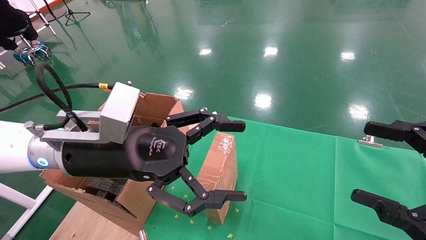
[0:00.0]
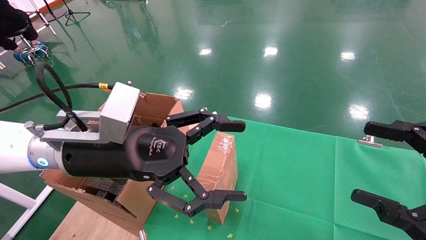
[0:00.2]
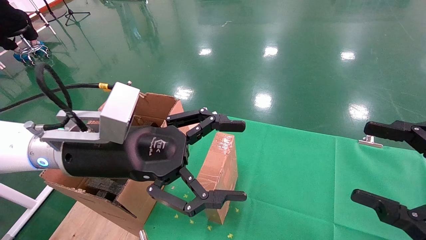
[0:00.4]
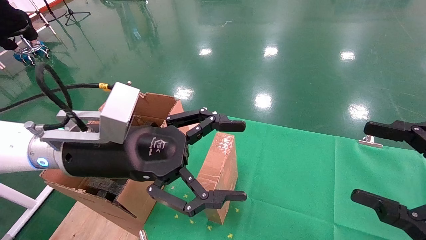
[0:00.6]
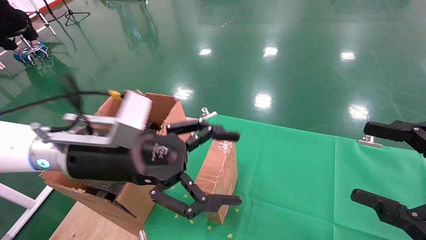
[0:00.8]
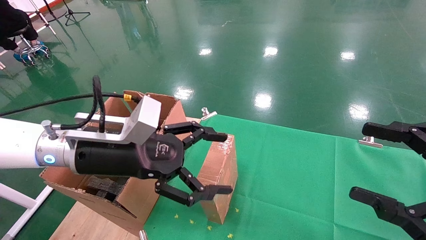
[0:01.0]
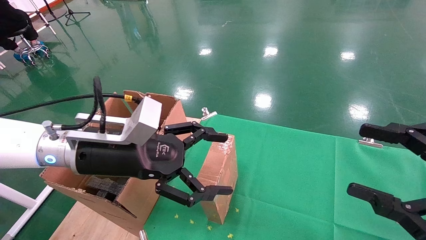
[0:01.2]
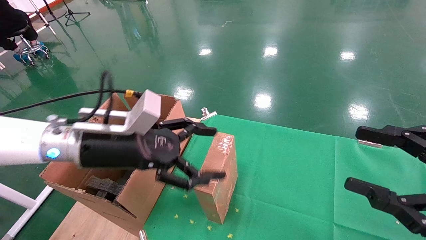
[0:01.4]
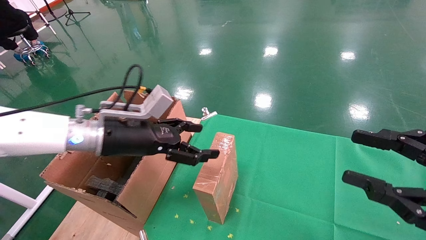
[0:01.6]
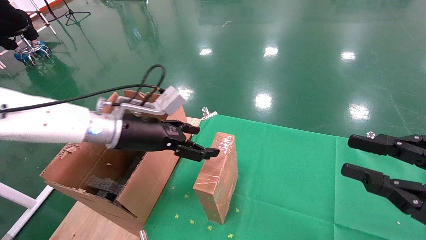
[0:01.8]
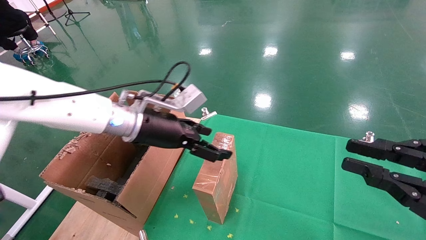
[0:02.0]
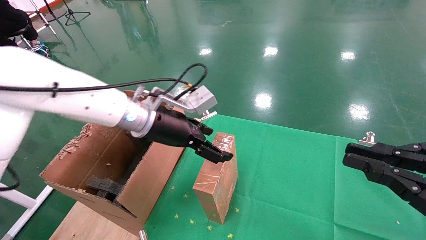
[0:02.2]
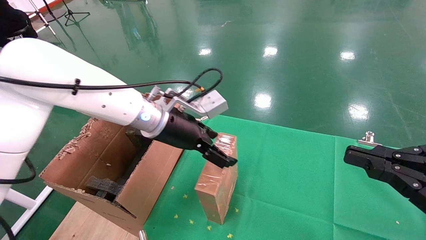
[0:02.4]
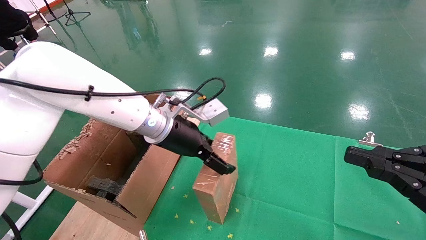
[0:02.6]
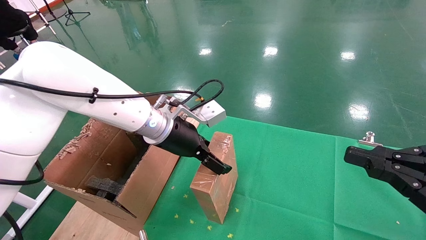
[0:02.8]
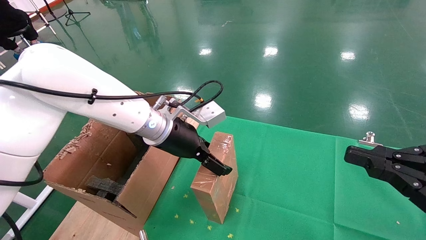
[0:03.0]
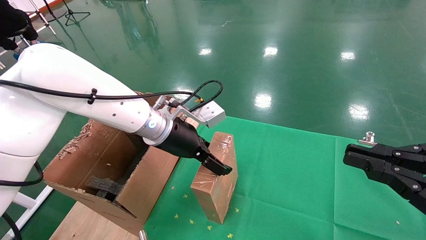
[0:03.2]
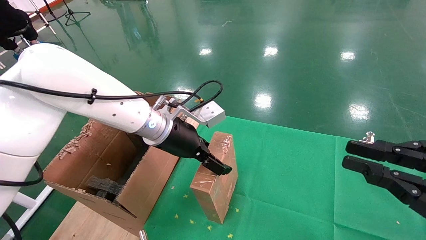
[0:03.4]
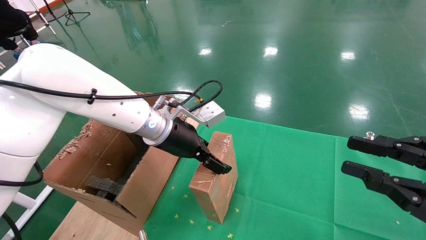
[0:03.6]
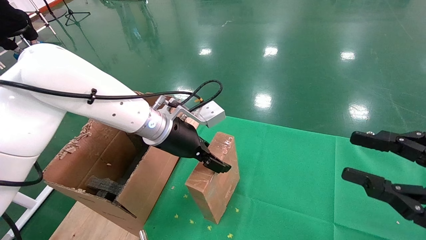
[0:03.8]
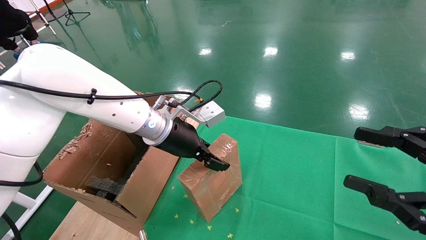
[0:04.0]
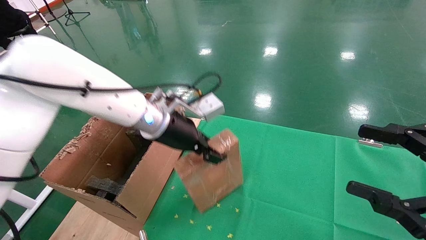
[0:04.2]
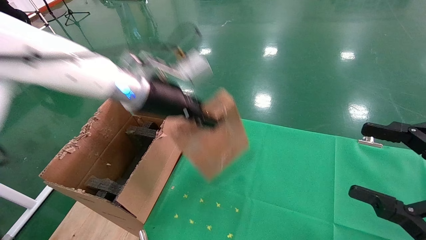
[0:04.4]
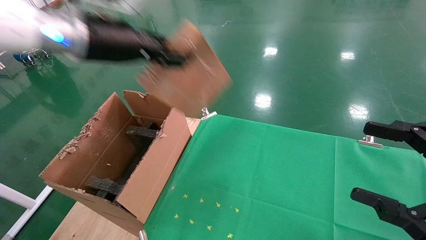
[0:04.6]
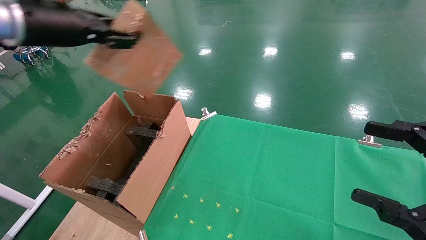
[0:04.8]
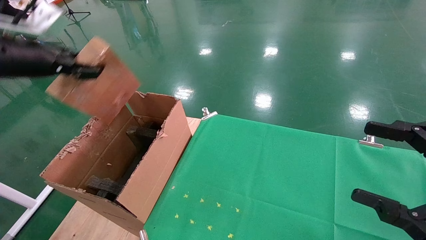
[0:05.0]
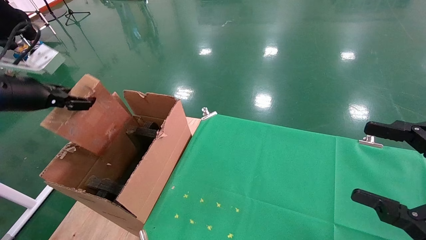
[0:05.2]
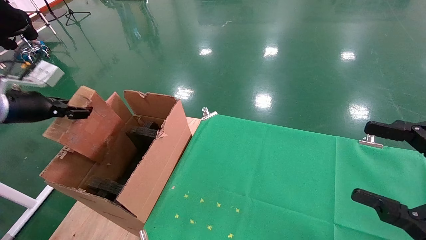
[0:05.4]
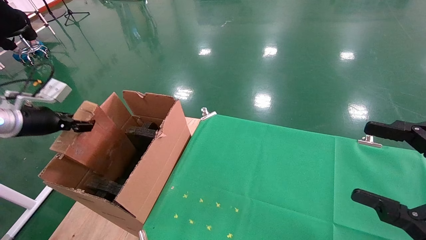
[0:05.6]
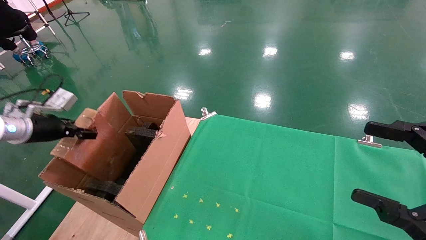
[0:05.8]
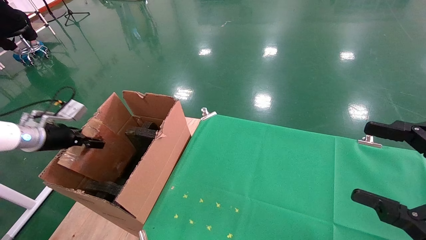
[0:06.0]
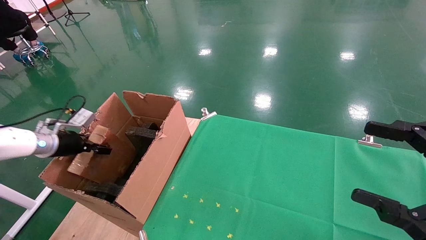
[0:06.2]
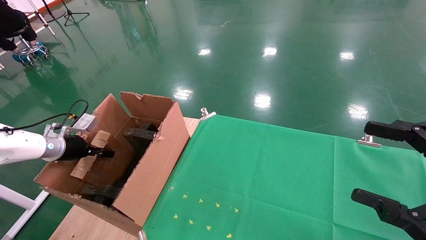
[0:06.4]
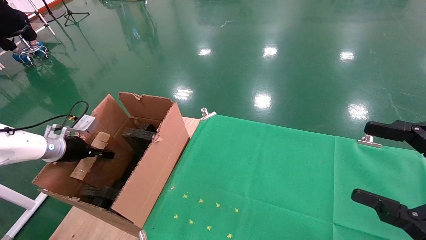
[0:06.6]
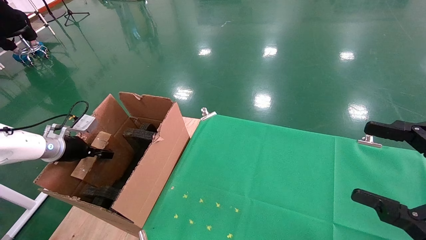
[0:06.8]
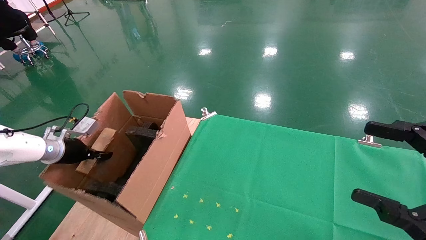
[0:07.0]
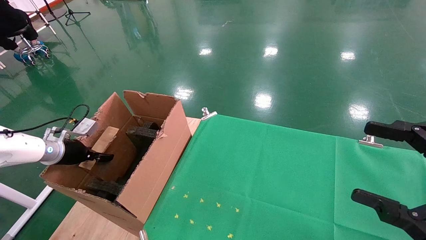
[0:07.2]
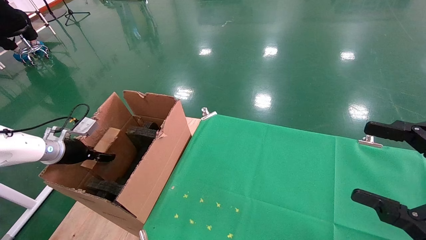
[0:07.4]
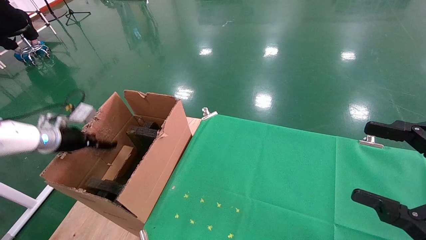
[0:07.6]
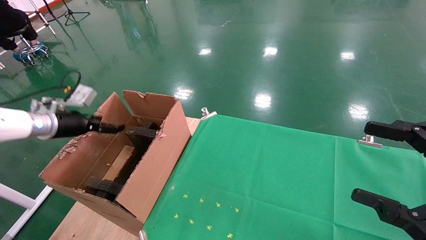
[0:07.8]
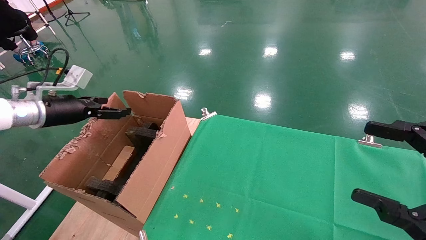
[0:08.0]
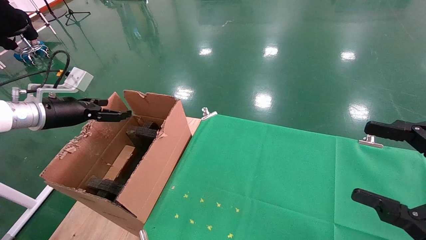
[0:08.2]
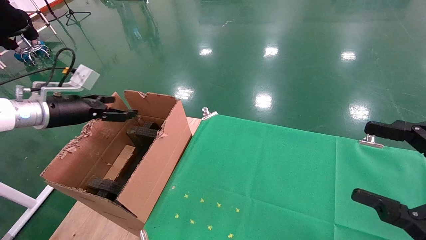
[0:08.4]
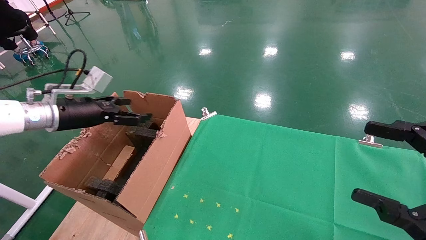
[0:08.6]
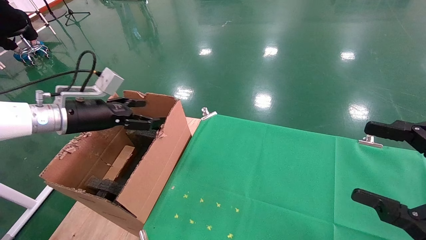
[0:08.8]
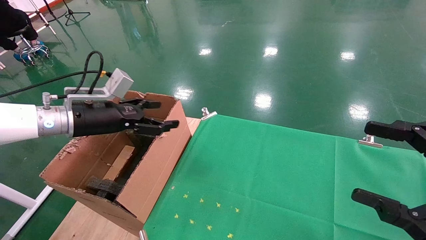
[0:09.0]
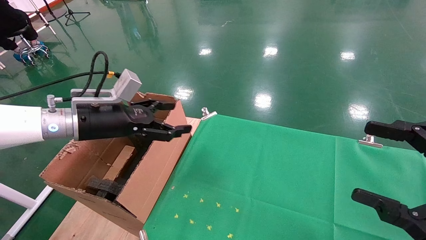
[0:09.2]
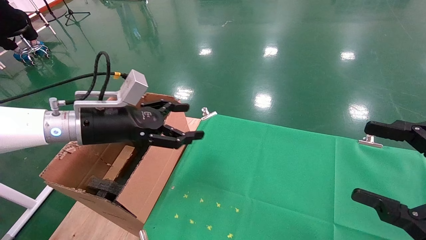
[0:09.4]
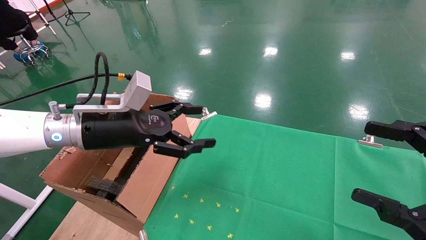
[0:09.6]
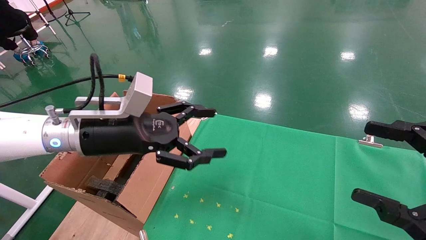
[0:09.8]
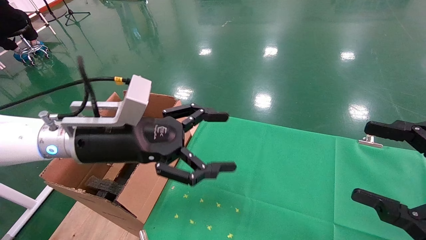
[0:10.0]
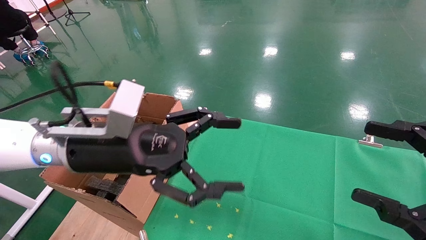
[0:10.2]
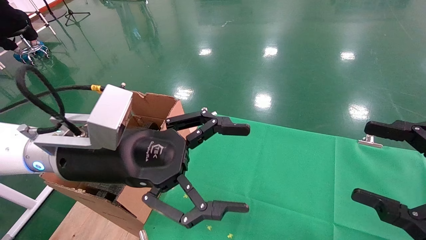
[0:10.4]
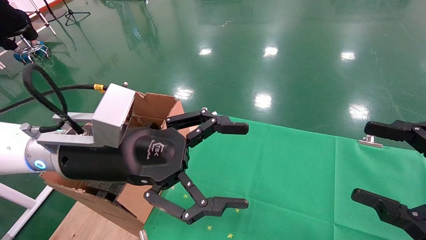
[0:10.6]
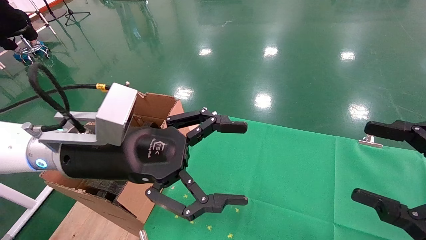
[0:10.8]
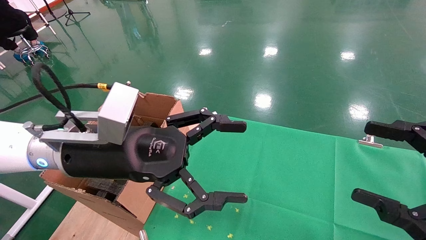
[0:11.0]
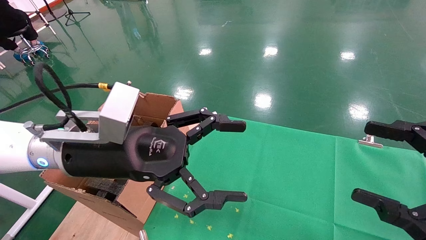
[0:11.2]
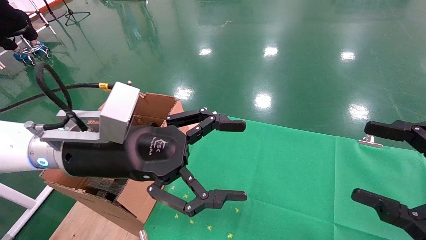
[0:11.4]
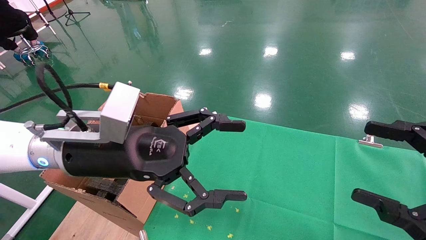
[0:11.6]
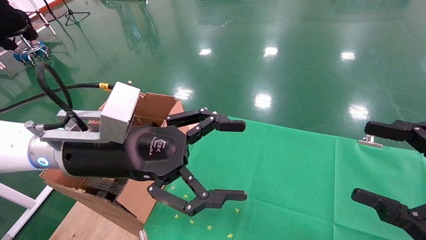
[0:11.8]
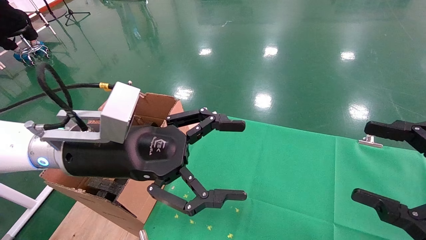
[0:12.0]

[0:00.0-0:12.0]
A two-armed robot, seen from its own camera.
Task of the whole recording: using a robotic arm to pick up a cardboard box and palace it the carton.
Step, 0:01.0 to 0:04.2: Pick up the mouse and the power cord paper box.
Step, 0:04.4 to 0:07.8: Place the mouse and the power cord paper box into the container.
0:00.0 to 0:01.6: The right gripper closes up. The left gripper is displaced forward by about 10 cm.
0:01.6 to 0:03.0: The left gripper heads to the right and forward, covering some 10 cm. Meanwhile the right gripper closes.
0:03.0 to 0:04.4: The left gripper moves upward, about 10 cm, and closes its fingers. Meanwhile the right gripper opens its fingers.
0:04.4 to 0:06.0: The left gripper is displaced to the left and downward by roughly 35 cm.
0:06.0 to 0:07.6: The left gripper opens up.
0:07.6 to 0:09.0: The left gripper is displaced to the right and upward by some 15 cm.
0:09.0 to 0:10.4: The left gripper is displaced to the right and backward by roughly 15 cm.
0:10.4 to 0:12.0: Both grippers stay about where they are.

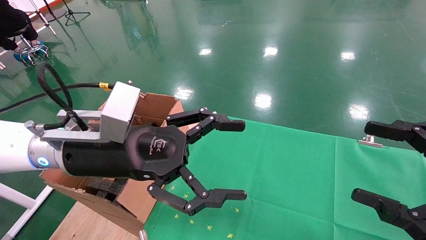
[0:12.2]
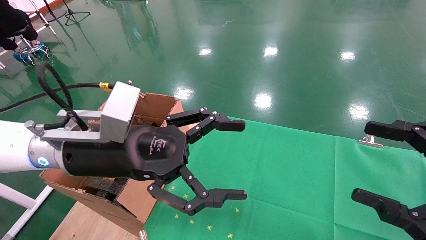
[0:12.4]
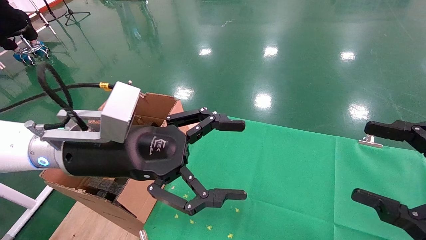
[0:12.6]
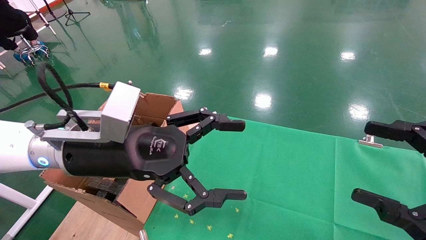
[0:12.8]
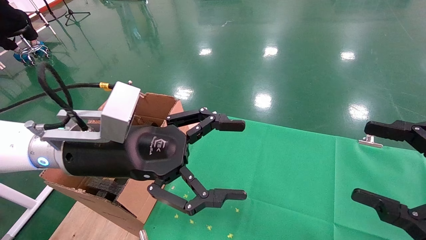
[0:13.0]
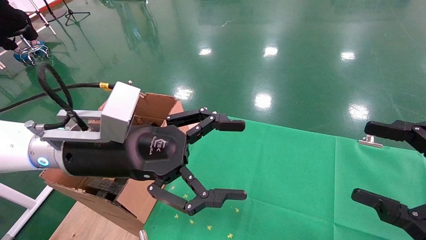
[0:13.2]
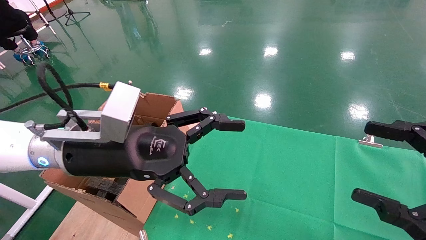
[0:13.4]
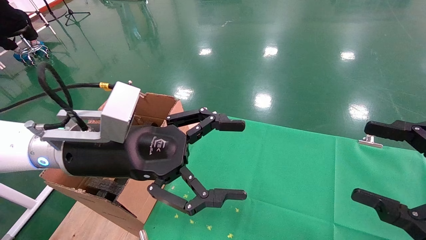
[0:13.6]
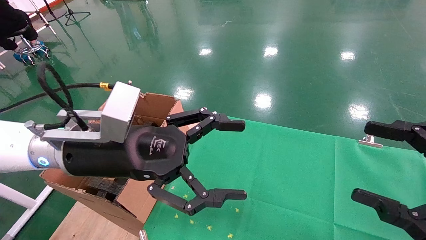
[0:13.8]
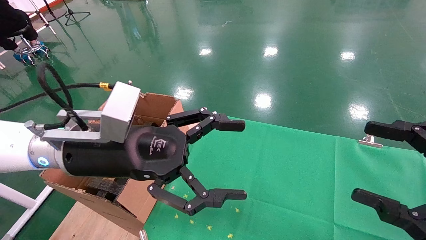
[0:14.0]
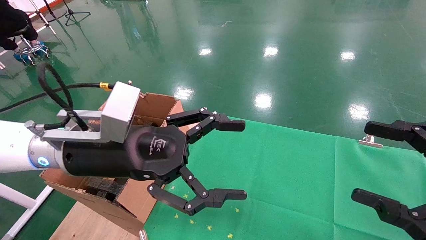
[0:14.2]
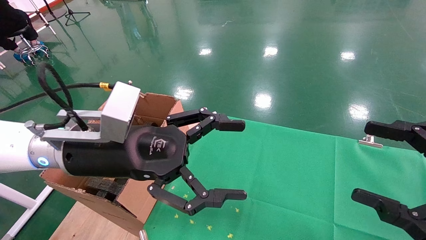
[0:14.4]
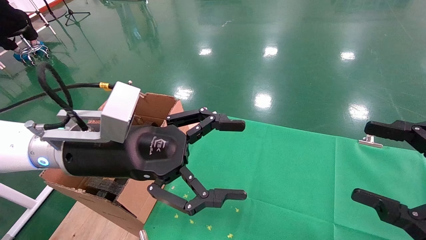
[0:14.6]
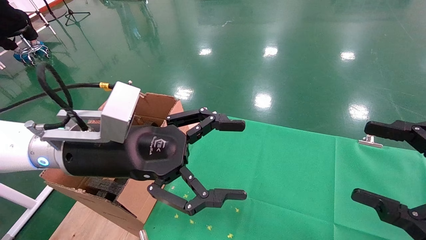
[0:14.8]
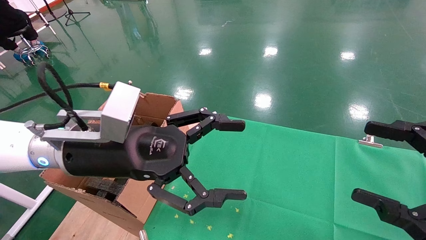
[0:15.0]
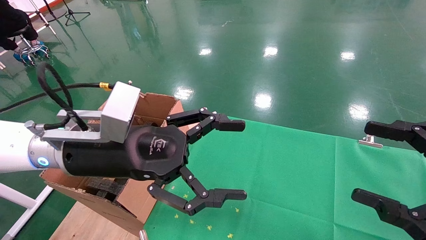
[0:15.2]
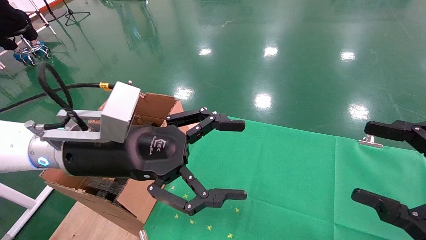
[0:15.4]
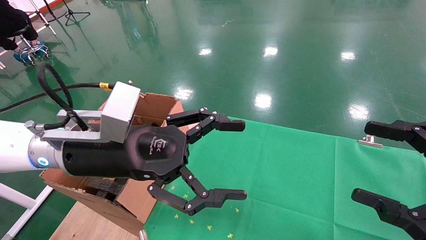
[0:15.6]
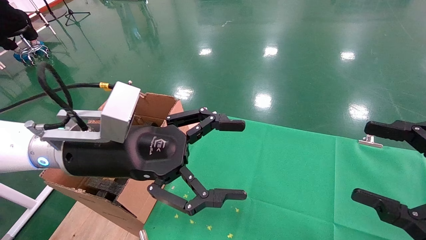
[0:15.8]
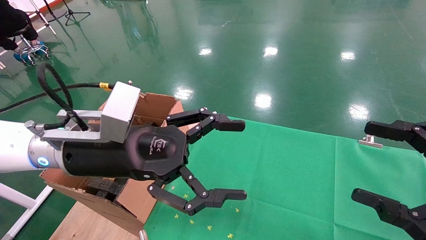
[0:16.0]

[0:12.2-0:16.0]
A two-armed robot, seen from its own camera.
Task of the whole recording: using a robotic arm to pick up a cardboard box and palace it the carton.
0:12.2 to 0:16.0: Both grippers stay about where they are.
